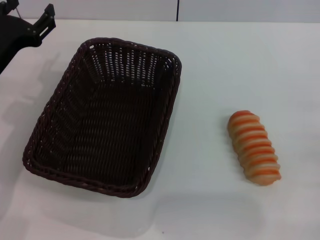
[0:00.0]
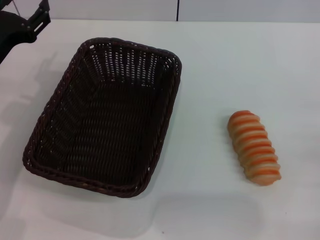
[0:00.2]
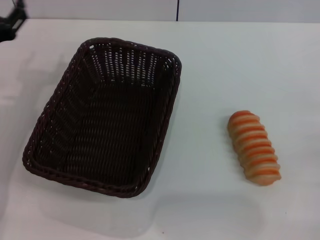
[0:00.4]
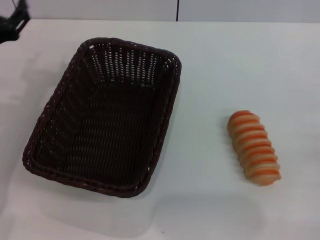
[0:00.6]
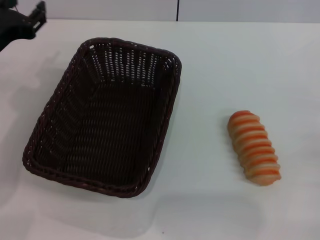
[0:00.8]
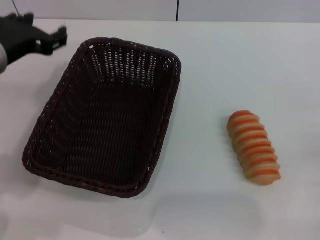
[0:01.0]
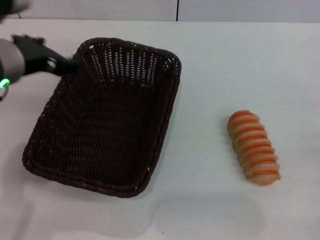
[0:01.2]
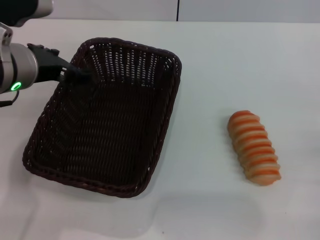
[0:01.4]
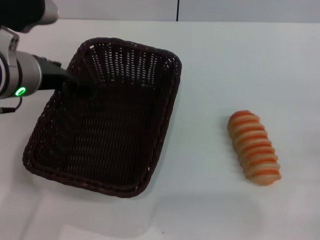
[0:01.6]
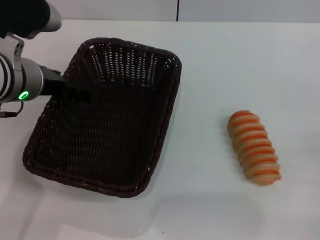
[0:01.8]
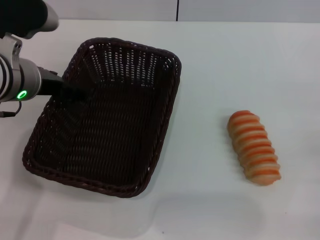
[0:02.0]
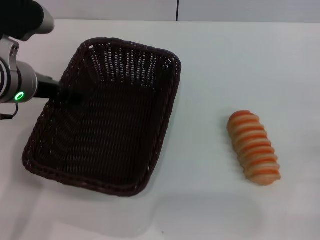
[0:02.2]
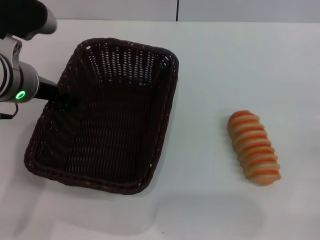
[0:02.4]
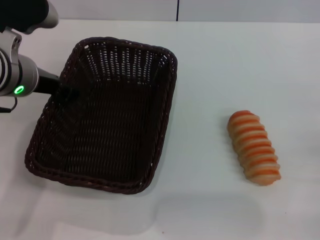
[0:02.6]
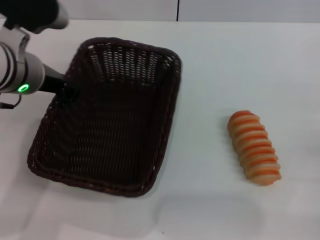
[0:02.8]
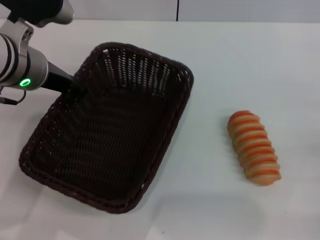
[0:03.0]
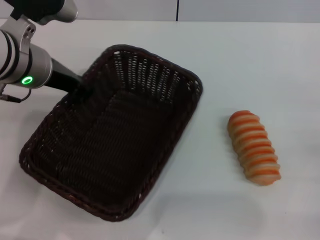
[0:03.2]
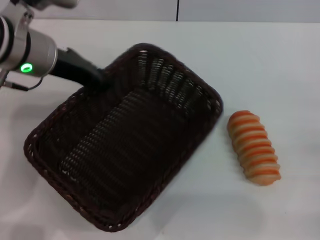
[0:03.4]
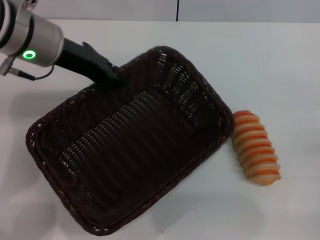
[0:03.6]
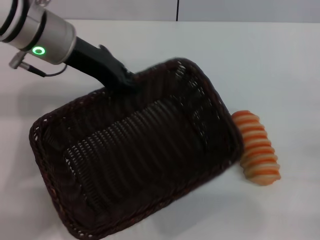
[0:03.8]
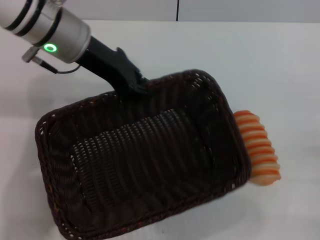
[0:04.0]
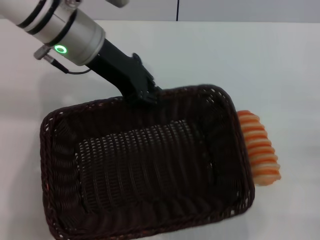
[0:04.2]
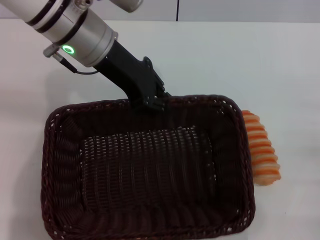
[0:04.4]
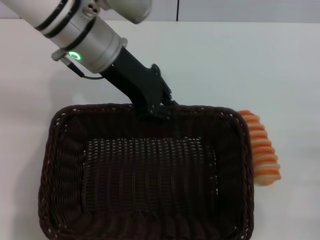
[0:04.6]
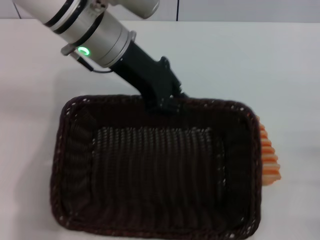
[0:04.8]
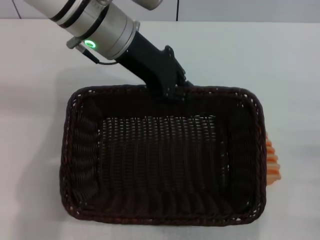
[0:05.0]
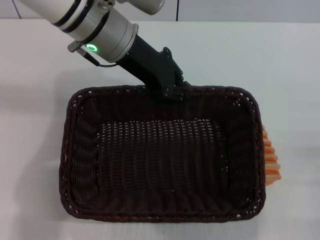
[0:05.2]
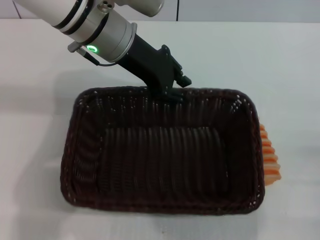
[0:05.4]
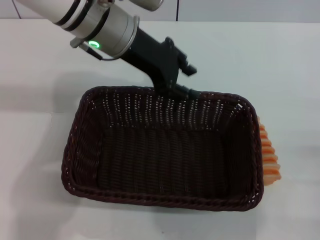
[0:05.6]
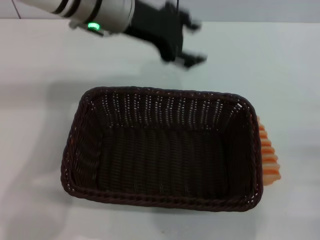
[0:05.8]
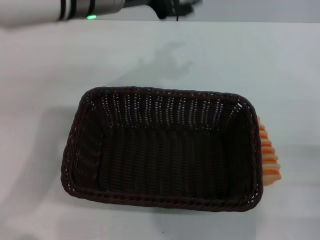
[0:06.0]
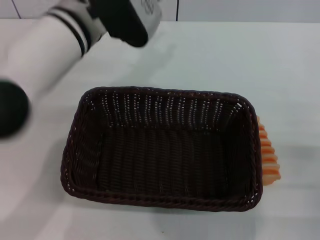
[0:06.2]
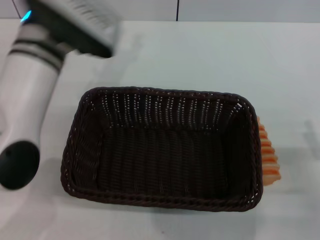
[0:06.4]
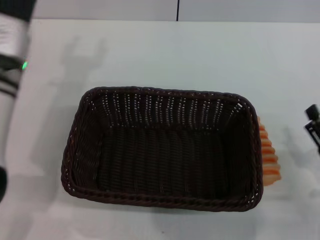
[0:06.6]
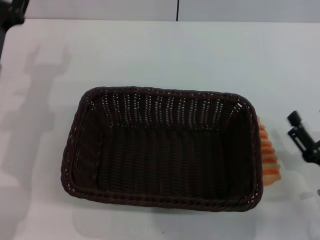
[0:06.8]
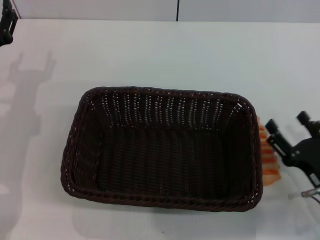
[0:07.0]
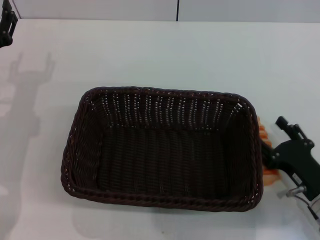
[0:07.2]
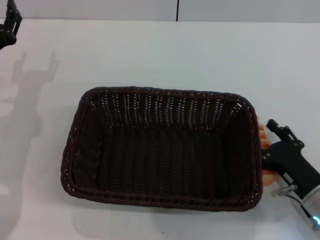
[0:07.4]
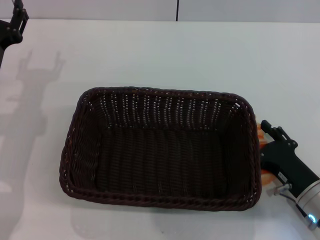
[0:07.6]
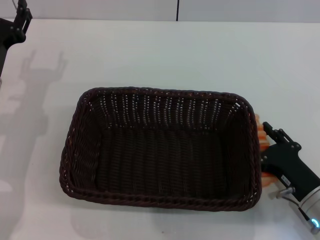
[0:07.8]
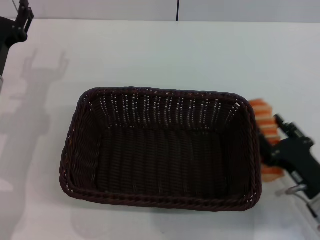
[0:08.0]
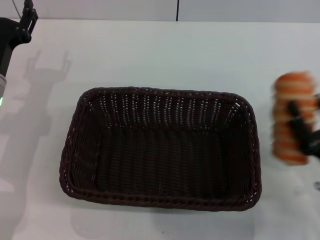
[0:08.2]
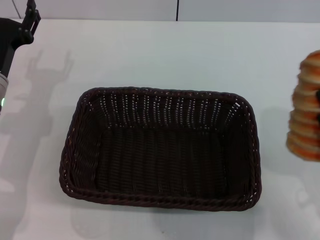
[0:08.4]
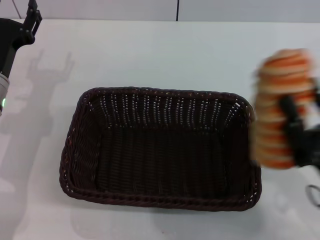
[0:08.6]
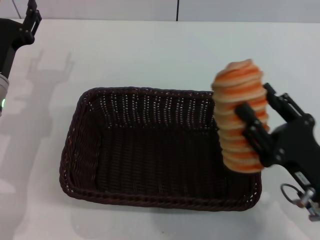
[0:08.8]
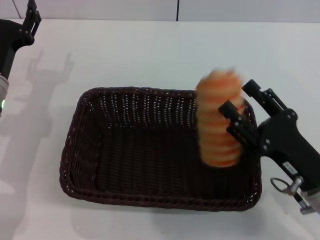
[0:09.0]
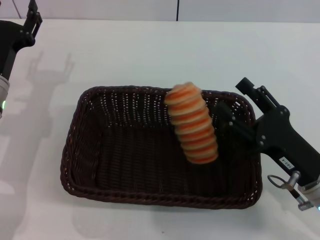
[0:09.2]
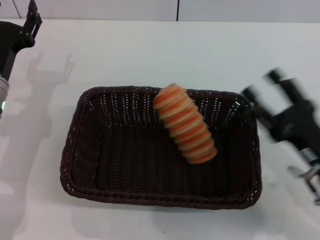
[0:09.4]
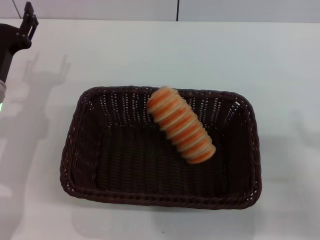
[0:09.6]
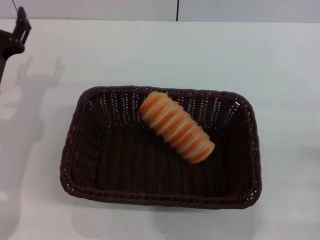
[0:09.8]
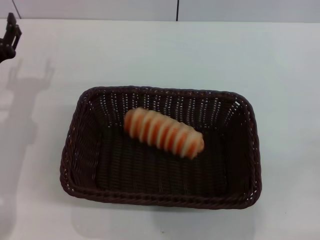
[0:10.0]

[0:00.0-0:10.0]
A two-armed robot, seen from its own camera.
Step, 0:00.0 to 0:03.6: Pick up the dark basket with the left gripper.
Step, 0:03.8 to 0:05.8: Place the dark basket in the center of view with the left gripper.
Step, 0:06.0 to 0:08.4: Pick up the long bread with the right gripper.
Step, 0:08.8 to 0:09.0: Place the long bread into the dark basket with the right gripper.
0:00.0 to 0:01.4: The left gripper goes about 10 cm to the right and upward.
0:01.4 to 0:02.8: The left gripper closes up.
0:02.8 to 0:04.2: The left gripper heads to the right and forward, covering about 10 cm, and closes its fingers.
0:04.2 to 0:05.8: The left gripper opens its fingers.
0:05.8 to 0:07.2: The right gripper travels to the left by approximately 10 cm. Meanwhile the left gripper is displaced to the left, downward and backward by approximately 25 cm.
0:07.2 to 0:08.6: The right gripper heads upward, covering some 5 cm, and closes its fingers.
0:08.6 to 0:10.0: The right gripper shifts about 10 cm to the right, and opens up.

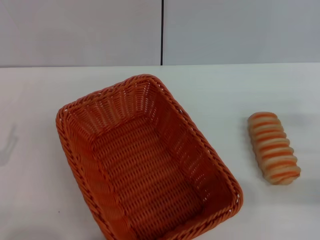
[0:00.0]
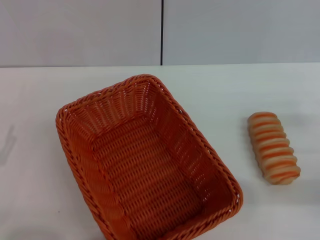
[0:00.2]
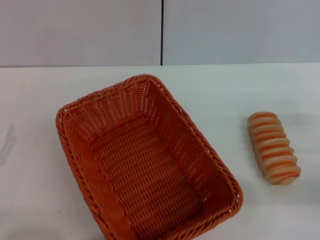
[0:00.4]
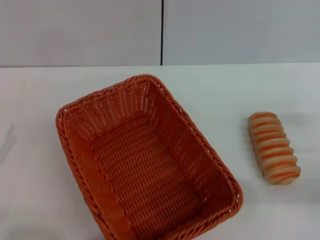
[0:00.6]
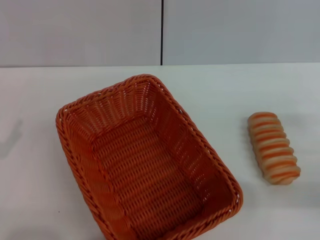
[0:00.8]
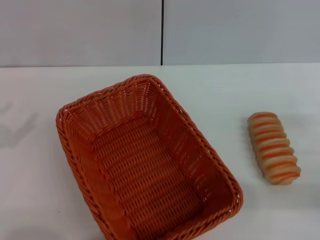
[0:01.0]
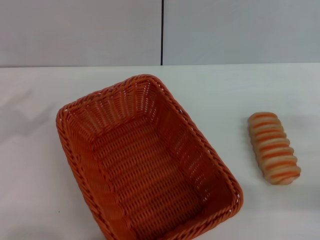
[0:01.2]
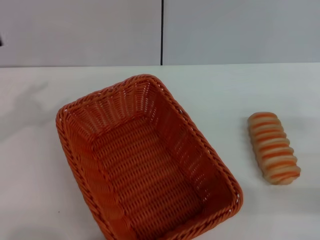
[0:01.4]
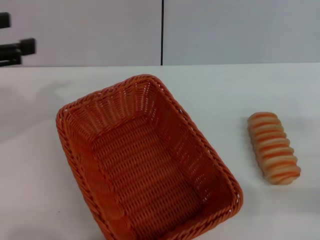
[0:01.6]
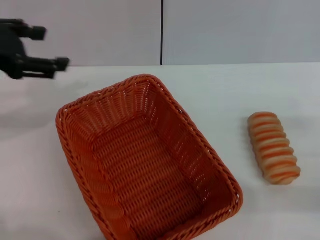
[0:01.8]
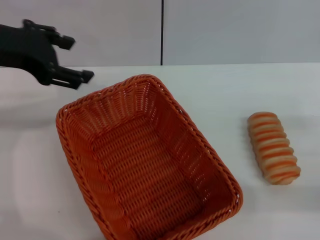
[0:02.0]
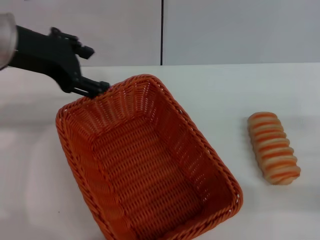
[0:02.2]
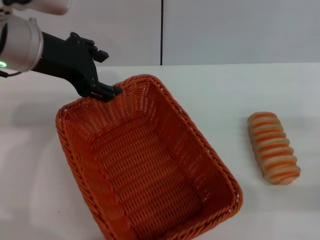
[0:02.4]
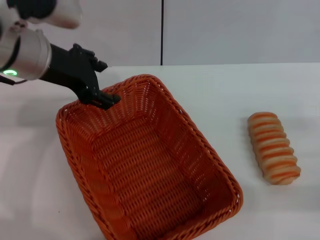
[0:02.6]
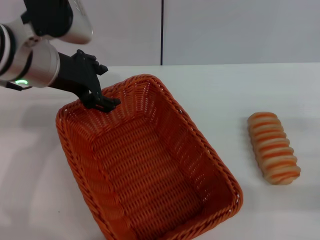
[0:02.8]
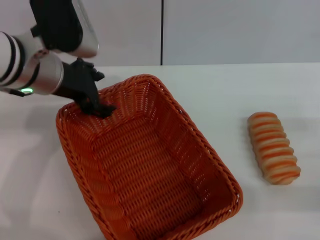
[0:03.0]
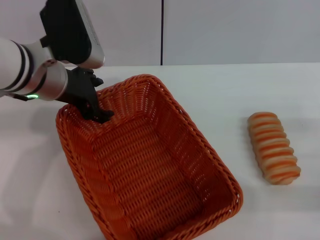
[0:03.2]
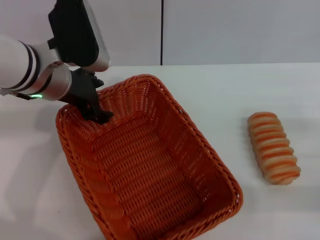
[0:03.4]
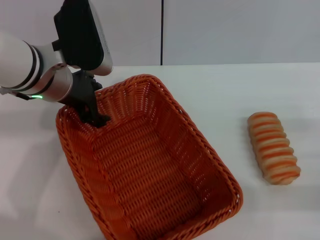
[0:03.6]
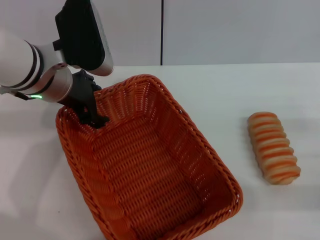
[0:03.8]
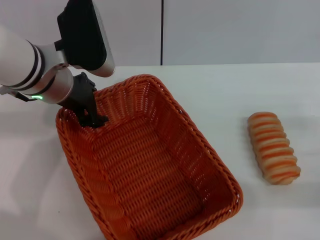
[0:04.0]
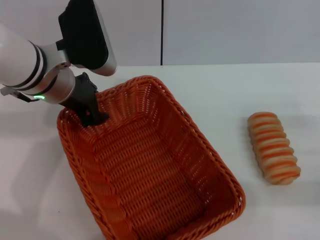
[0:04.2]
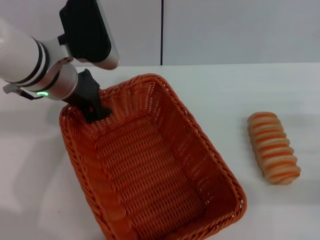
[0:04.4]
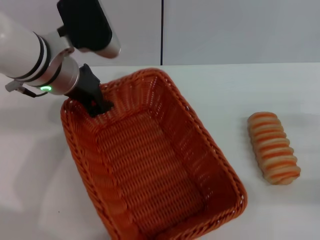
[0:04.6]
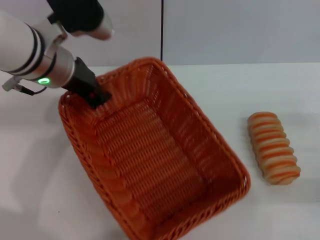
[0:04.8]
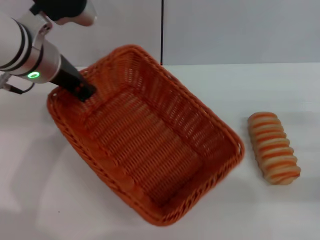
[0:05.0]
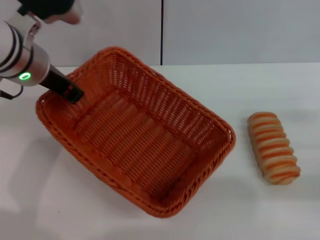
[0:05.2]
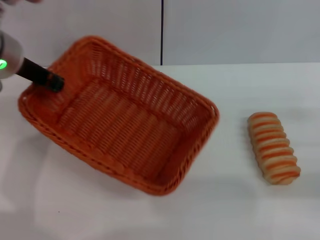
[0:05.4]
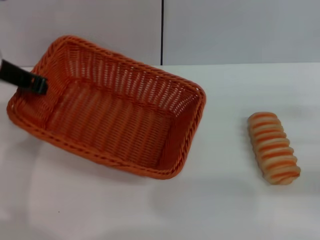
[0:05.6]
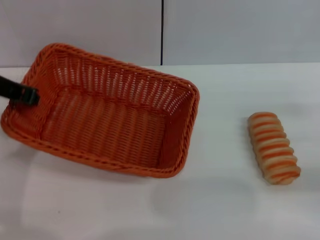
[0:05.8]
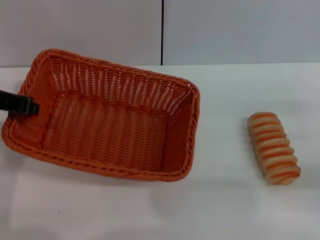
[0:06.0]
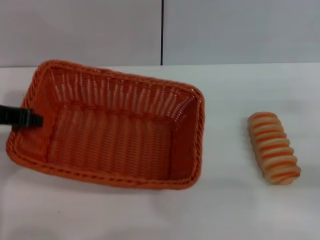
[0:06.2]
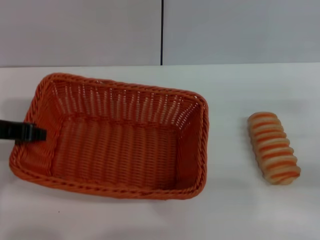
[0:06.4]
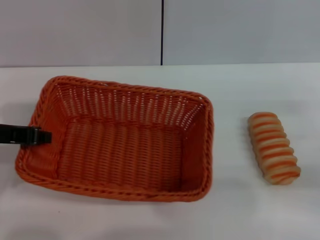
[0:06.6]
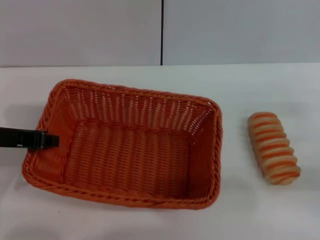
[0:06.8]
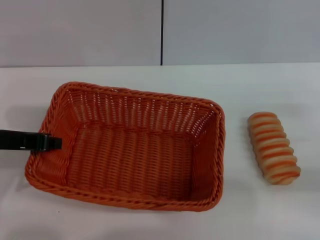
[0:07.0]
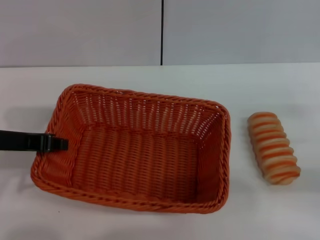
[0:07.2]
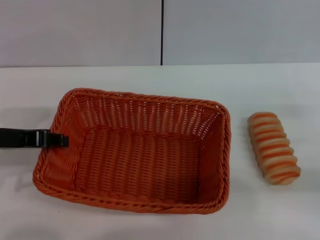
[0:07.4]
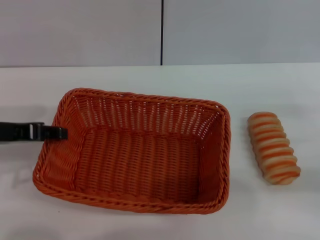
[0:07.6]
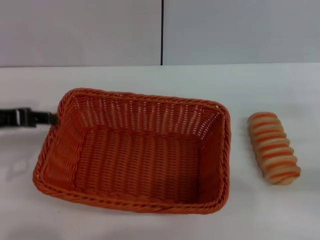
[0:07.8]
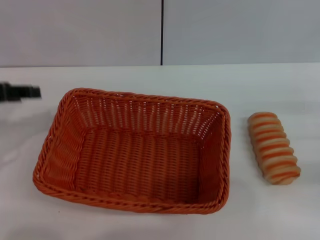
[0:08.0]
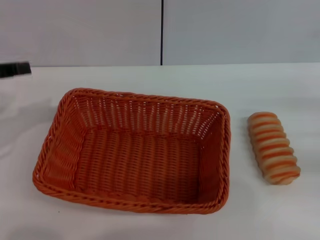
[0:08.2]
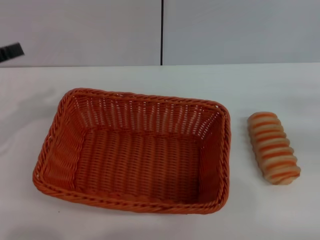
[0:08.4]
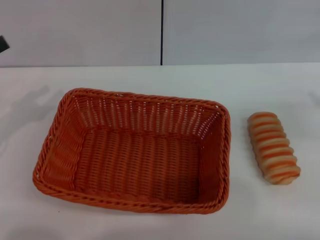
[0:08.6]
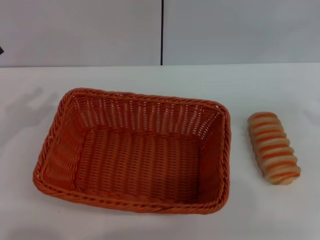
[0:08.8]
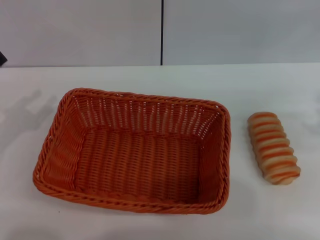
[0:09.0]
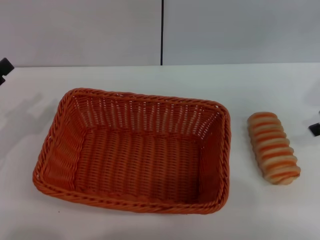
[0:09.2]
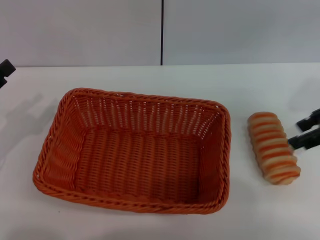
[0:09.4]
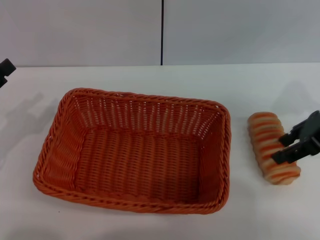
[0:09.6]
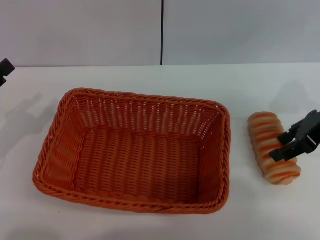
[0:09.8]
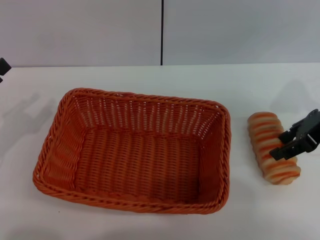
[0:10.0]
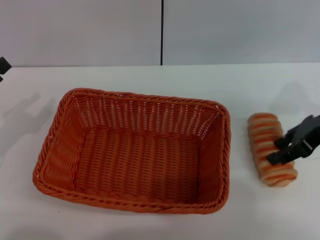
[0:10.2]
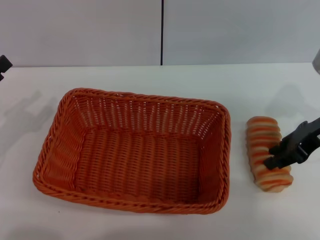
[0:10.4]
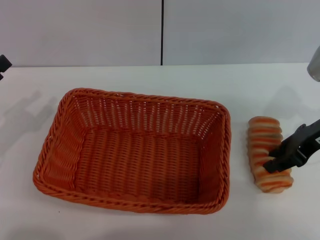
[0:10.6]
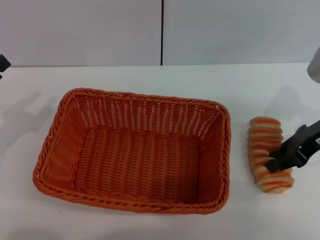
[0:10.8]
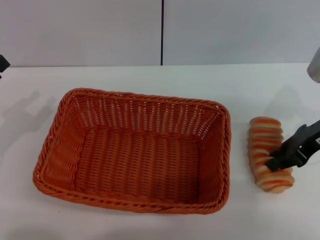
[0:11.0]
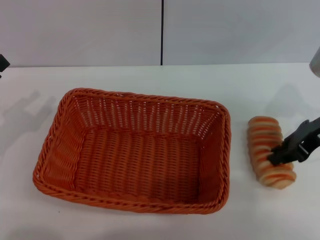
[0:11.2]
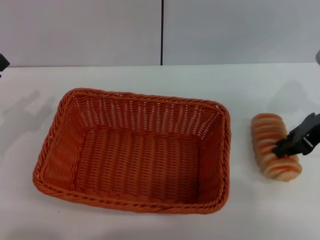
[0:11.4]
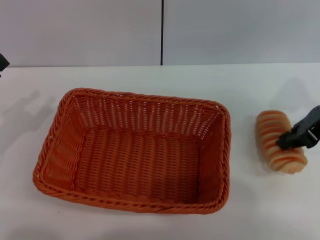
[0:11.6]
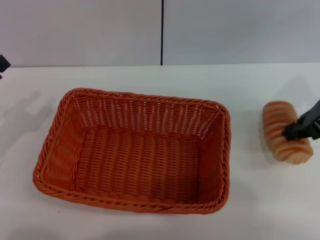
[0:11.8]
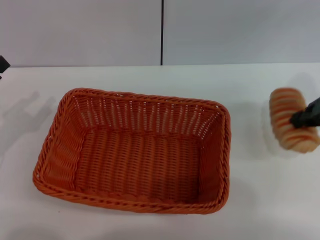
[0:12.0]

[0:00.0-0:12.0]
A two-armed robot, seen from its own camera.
Step, 0:00.0 to 0:05.0: Pick up the light basket with the left gripper.
Step, 0:05.2 to 0:07.6: Place the light basket in the center of view with the left gripper.
0:00.0 to 0:01.6: The left gripper shifts approximately 25 cm upward and forward.
0:01.6 to 0:03.0: The left gripper is displaced to the right and forward by some 20 cm.
0:03.0 to 0:04.4: The left gripper closes up.
0:04.4 to 0:06.0: The left gripper moves to the left, roughly 10 cm.
0:06.0 to 0:07.6: The left gripper shifts by some 5 cm.
0:07.6 to 0:09.0: The left gripper shifts some 10 cm to the left and downward.
0:09.0 to 0:10.4: The right gripper shifts approximately 10 cm to the left.
0:10.4 to 0:12.0: The right gripper moves upward, approximately 5 cm, and closes its fingers.
